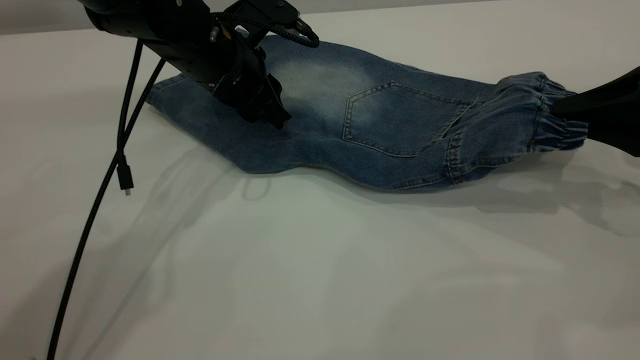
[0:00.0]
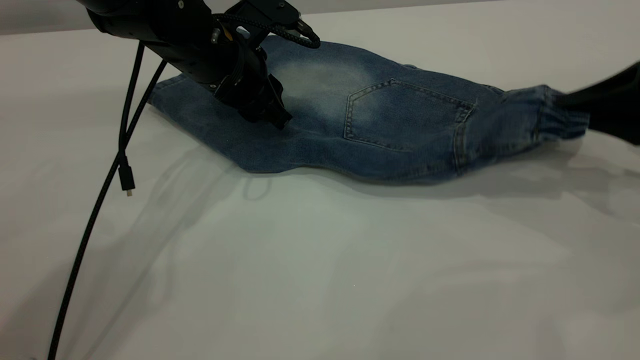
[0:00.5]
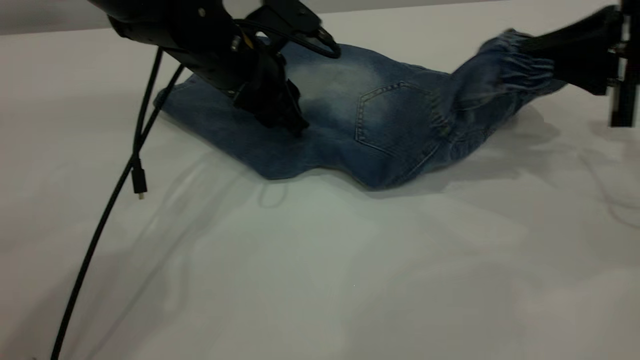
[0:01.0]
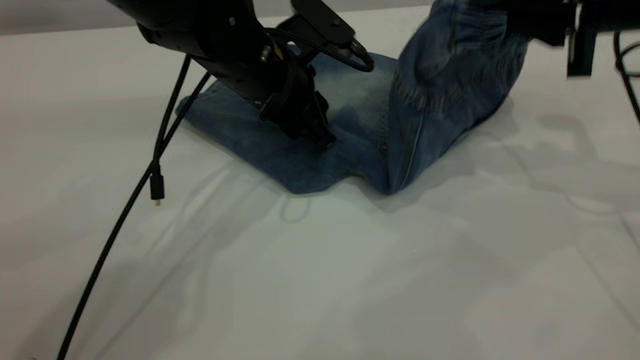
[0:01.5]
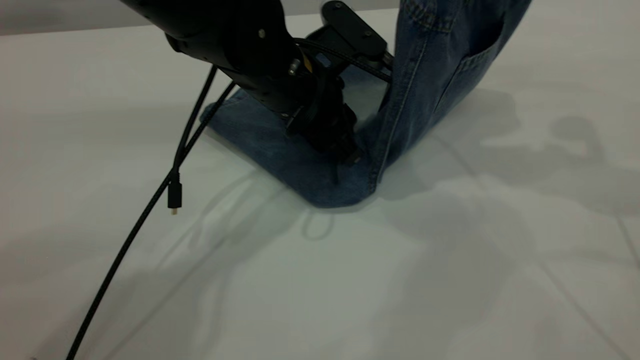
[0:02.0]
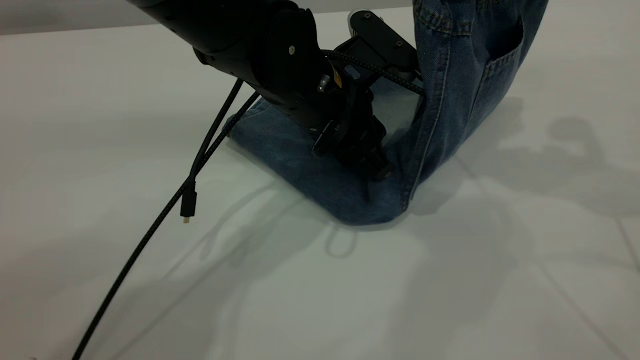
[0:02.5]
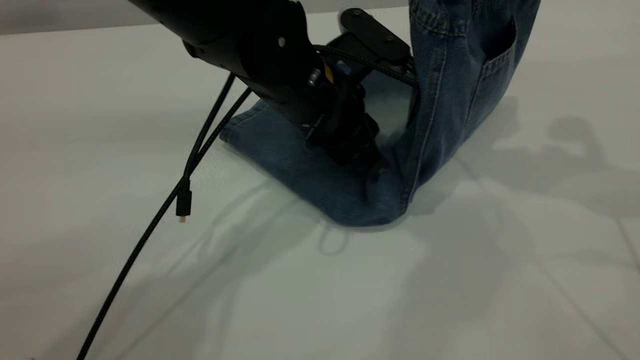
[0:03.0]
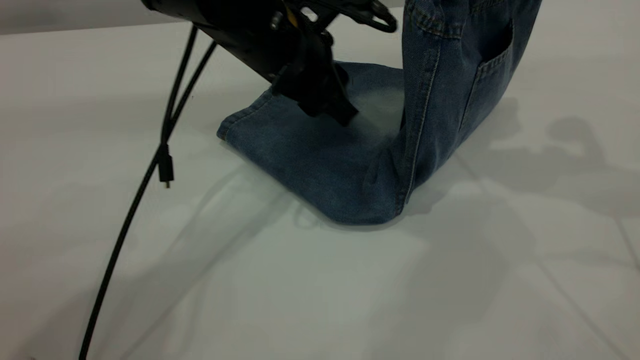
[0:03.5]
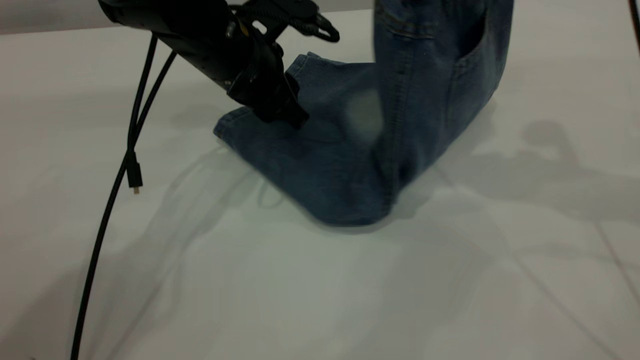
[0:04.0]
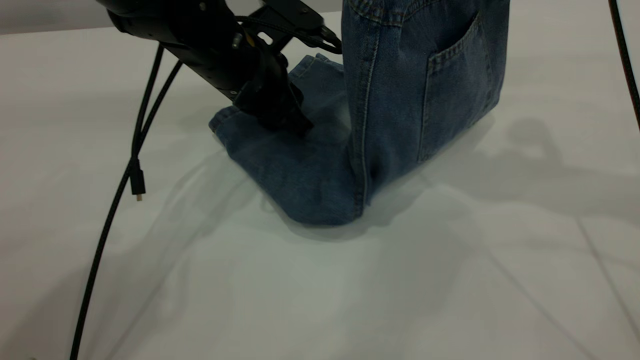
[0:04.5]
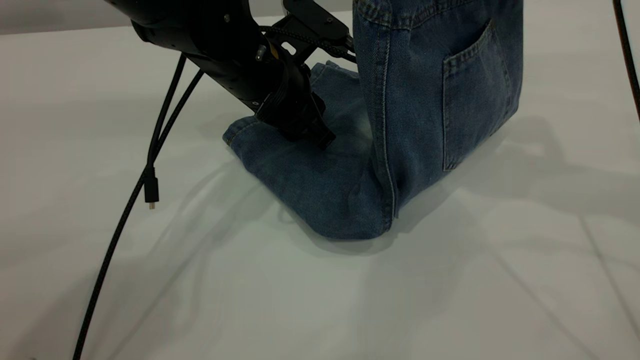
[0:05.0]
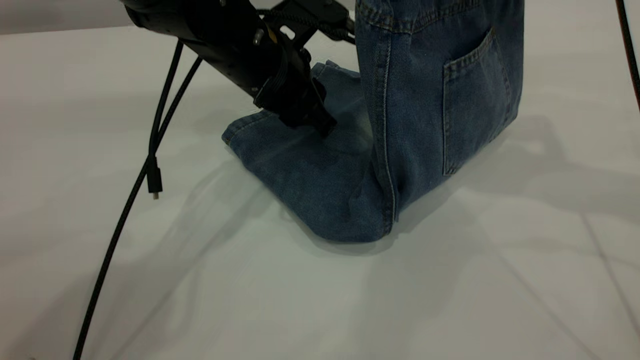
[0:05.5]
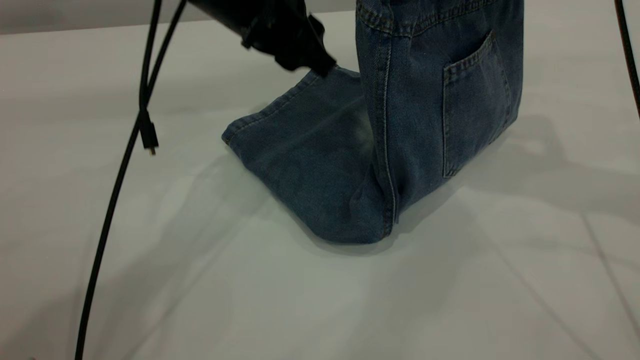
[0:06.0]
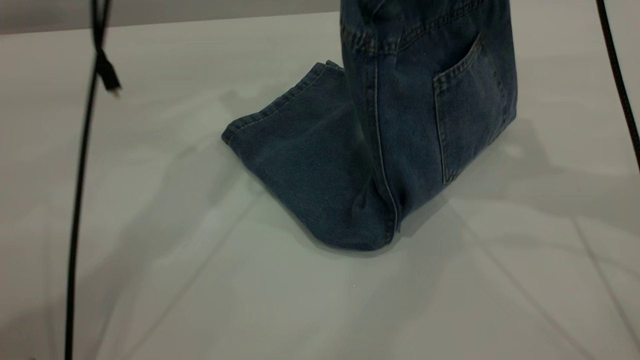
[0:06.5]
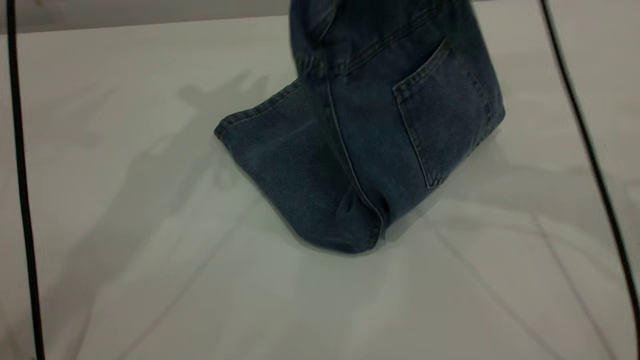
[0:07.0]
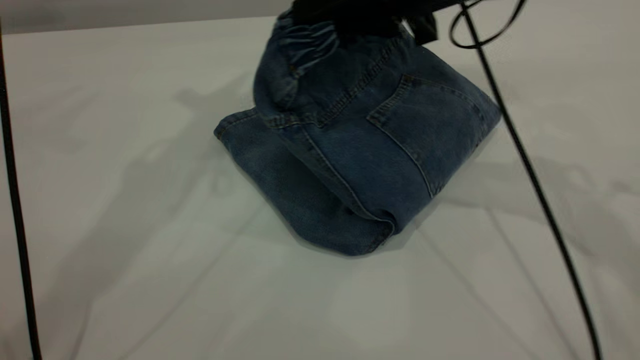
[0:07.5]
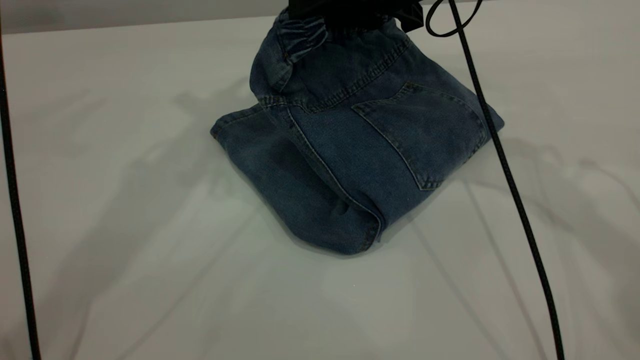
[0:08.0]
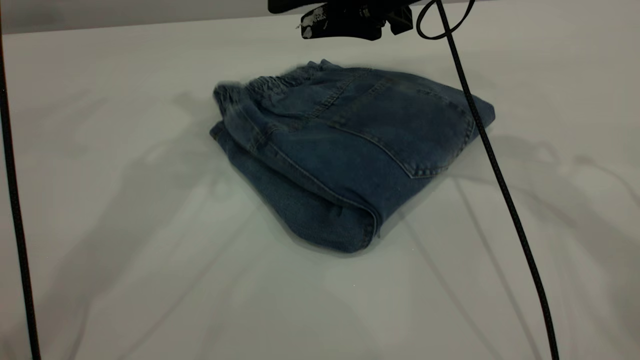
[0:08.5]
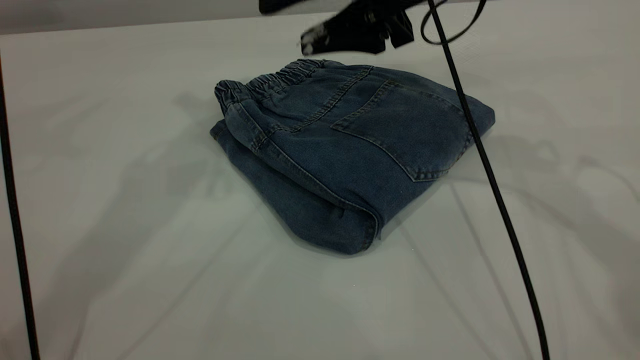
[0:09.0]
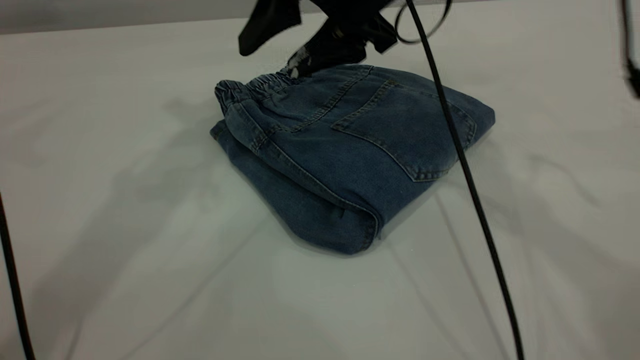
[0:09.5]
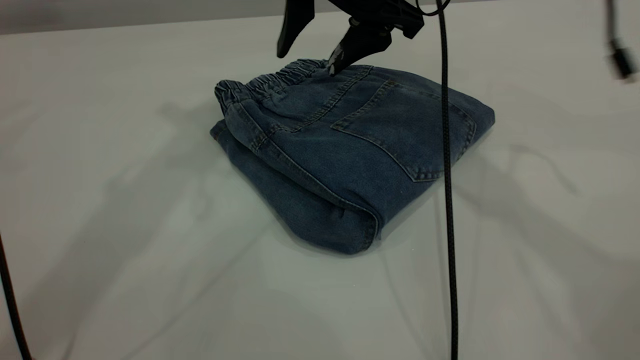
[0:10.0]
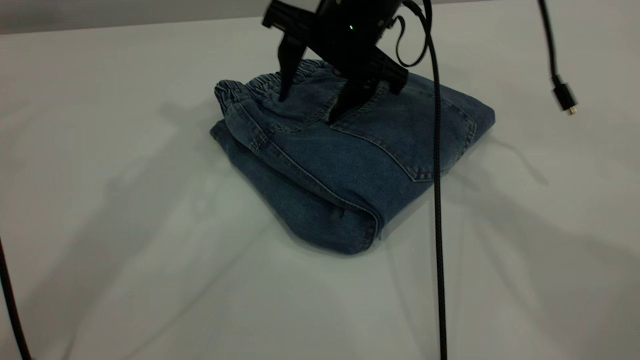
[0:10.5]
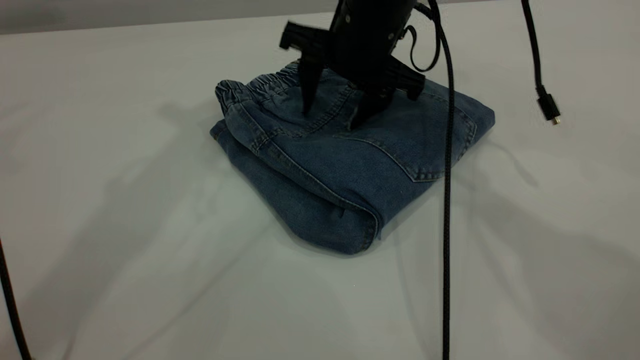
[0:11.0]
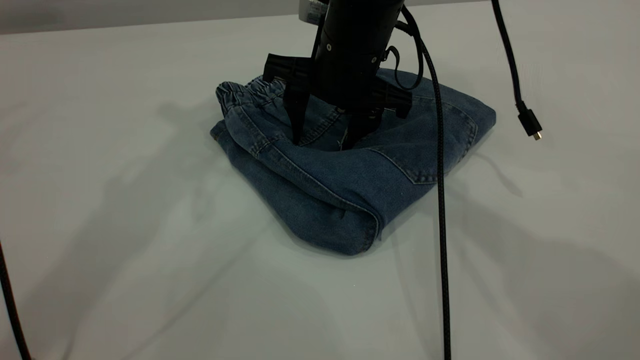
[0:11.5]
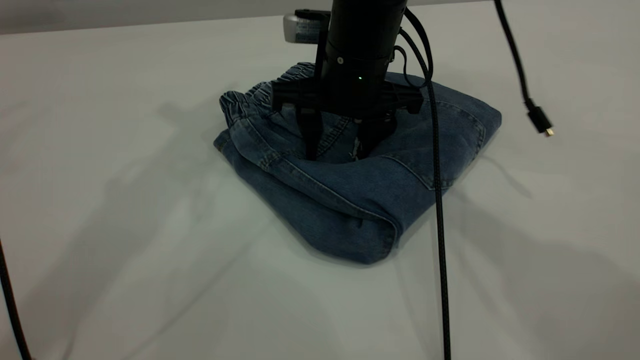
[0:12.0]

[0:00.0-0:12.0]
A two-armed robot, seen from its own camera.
Step, 0:00.0 to 0:08.5: Fold your pants from right to left.
0:00.0 to 0:02.0: The right gripper travels upward by approximately 15 cm, while the left gripper goes some 10 cm to the right and backward.
0:02.0 to 0:04.0: The left gripper is displaced to the left by about 5 cm.
0:04.0 to 0:06.0: The left gripper shifts roughly 5 cm upward.
0:06.0 to 0:08.0: The left gripper moves upward and to the left, about 20 cm. Meanwhile the right gripper travels to the left, downward and forward by approximately 15 cm.
0:08.0 to 0:10.0: The left gripper travels upward by some 5 cm. Meanwhile the right gripper opens up.
0:10.0 to 0:12.0: The right gripper goes some 10 cm downward.

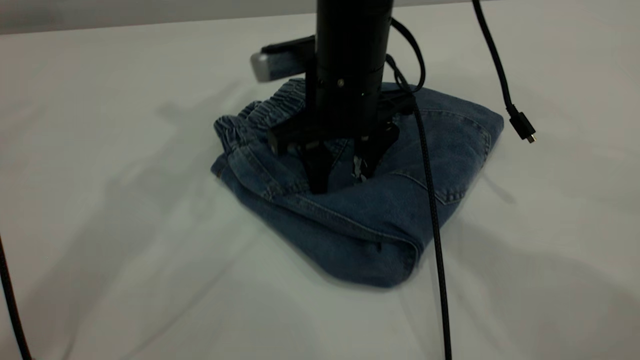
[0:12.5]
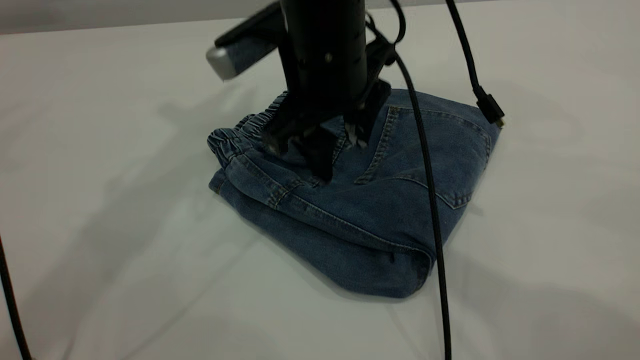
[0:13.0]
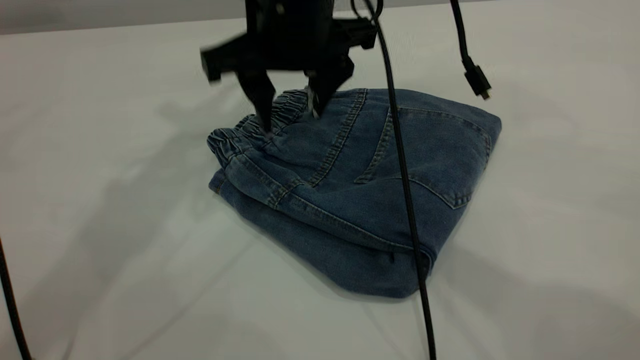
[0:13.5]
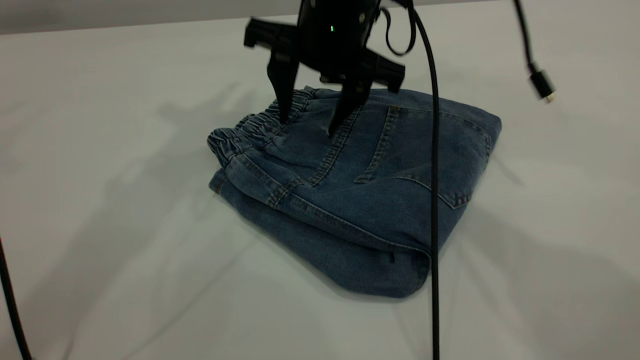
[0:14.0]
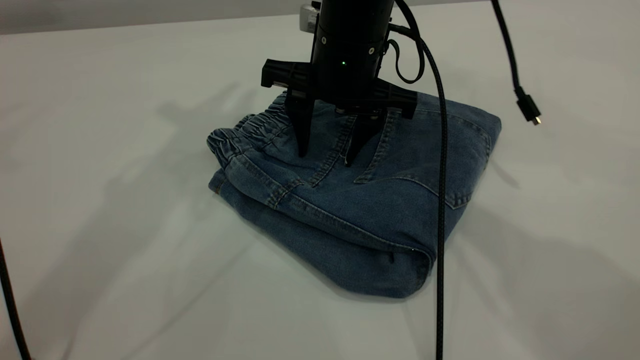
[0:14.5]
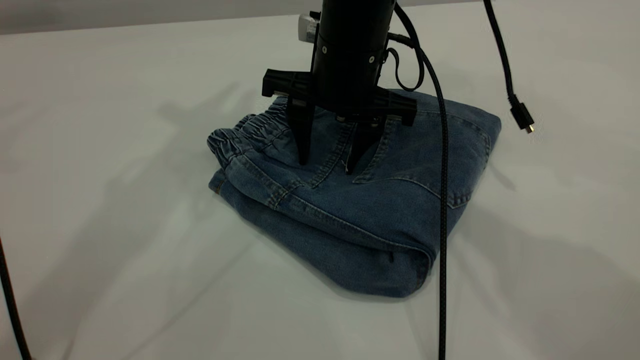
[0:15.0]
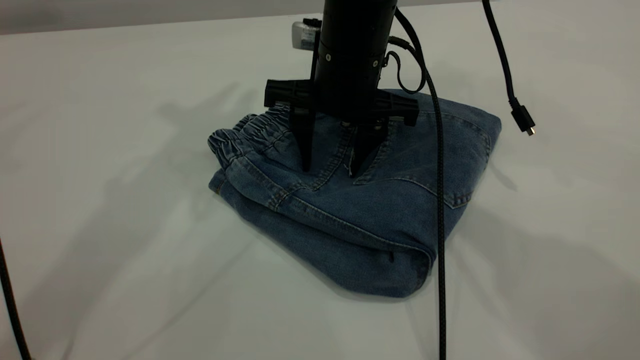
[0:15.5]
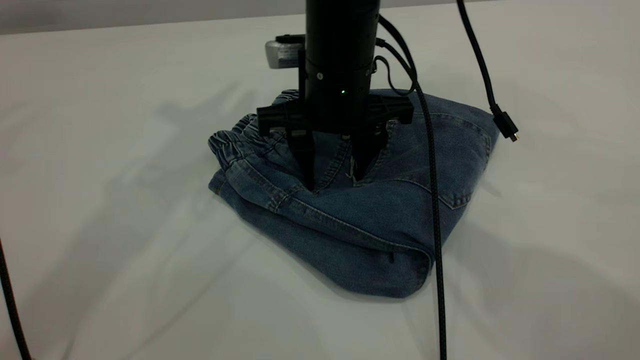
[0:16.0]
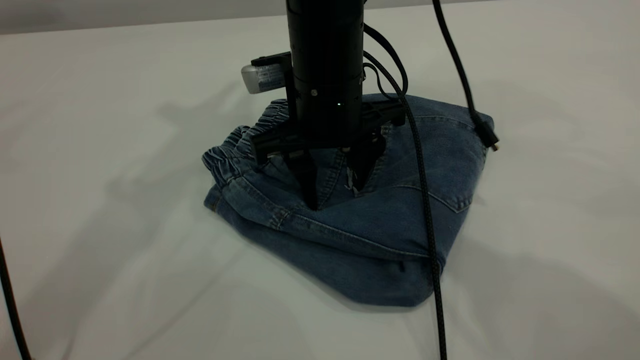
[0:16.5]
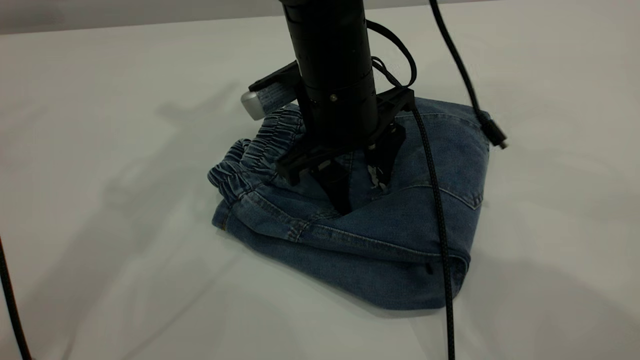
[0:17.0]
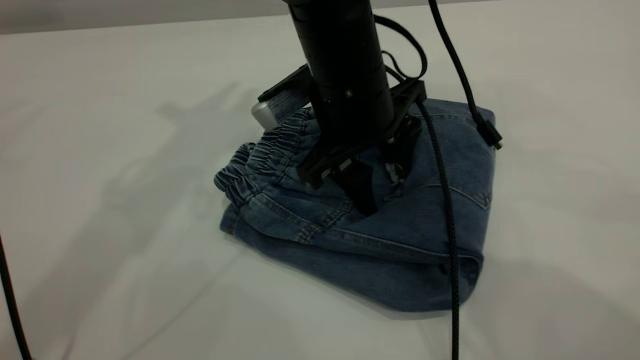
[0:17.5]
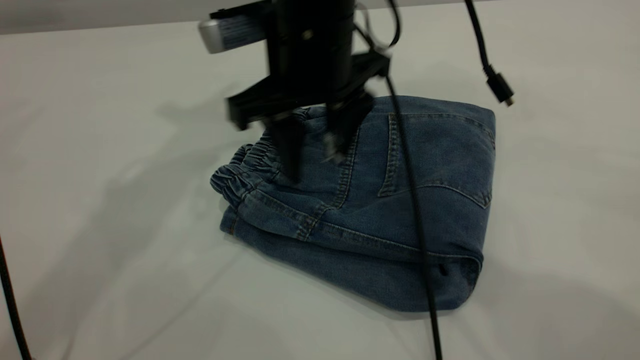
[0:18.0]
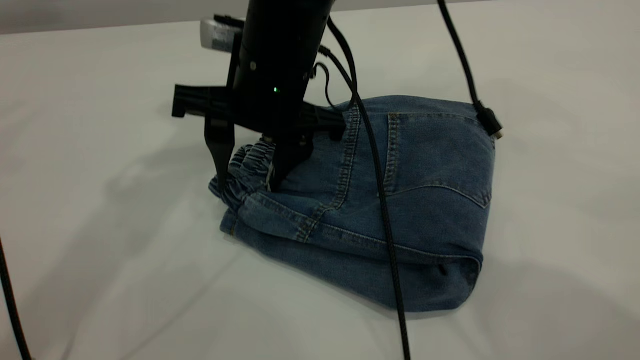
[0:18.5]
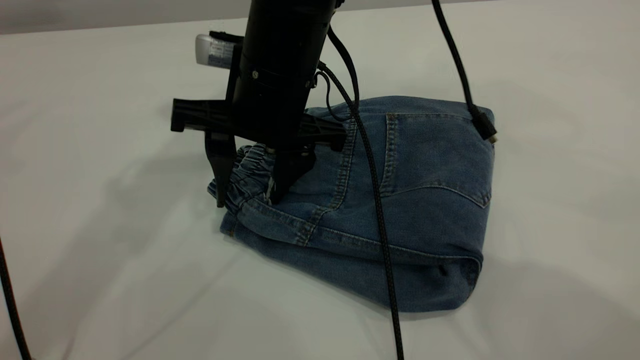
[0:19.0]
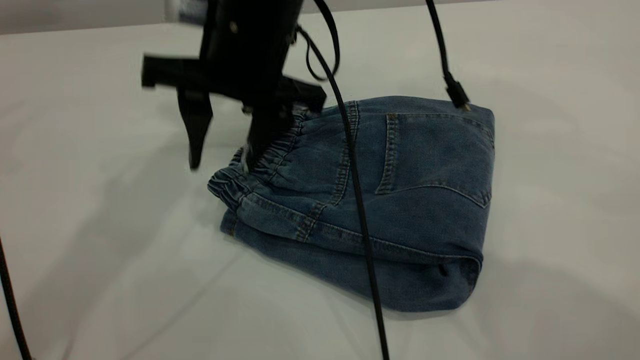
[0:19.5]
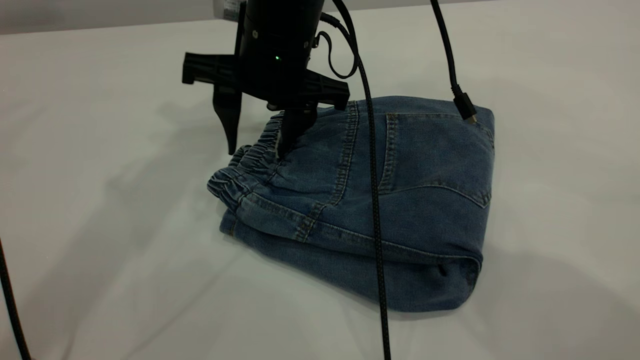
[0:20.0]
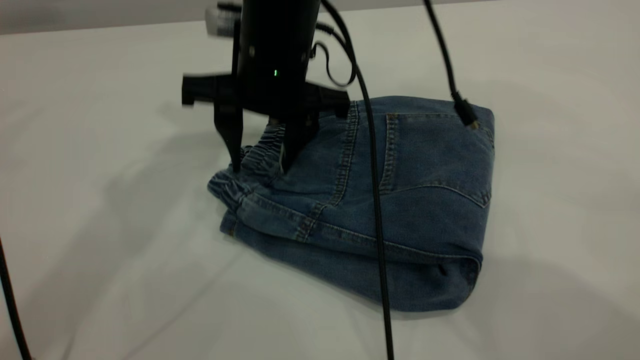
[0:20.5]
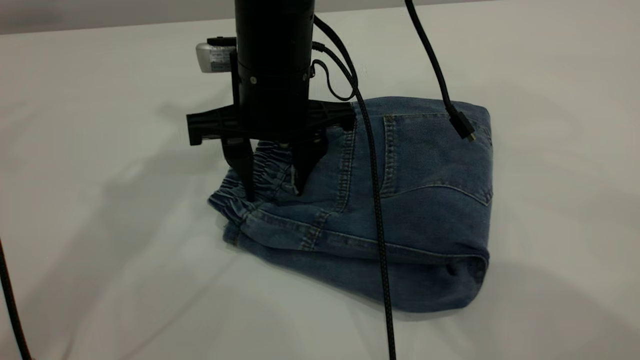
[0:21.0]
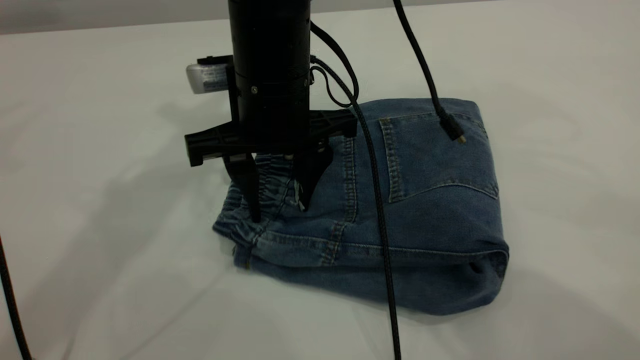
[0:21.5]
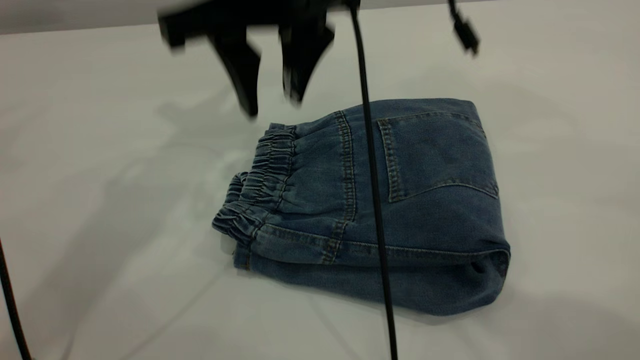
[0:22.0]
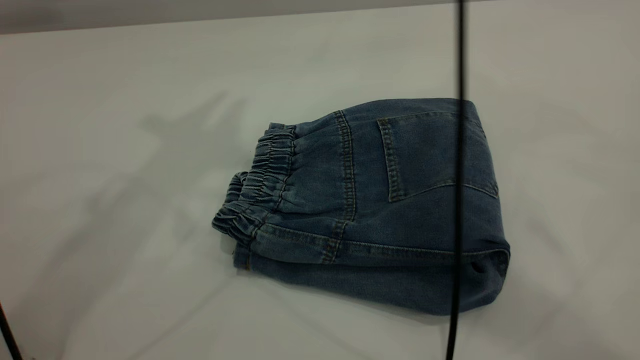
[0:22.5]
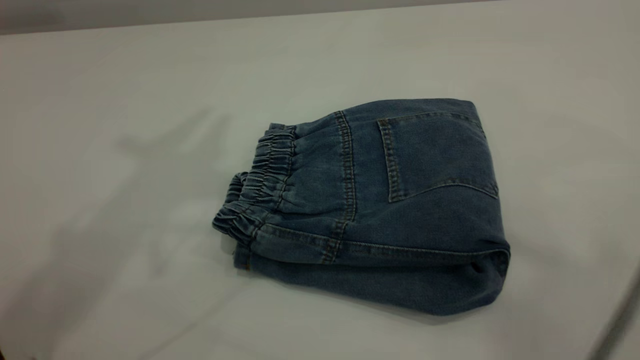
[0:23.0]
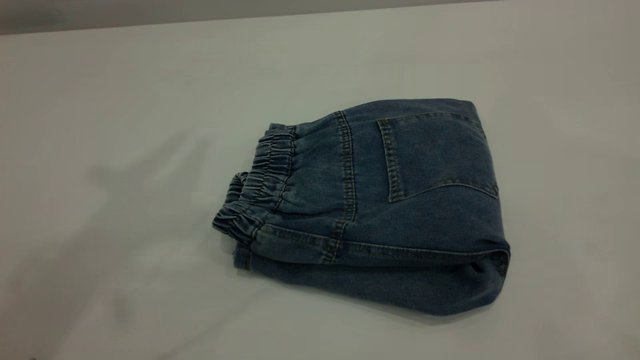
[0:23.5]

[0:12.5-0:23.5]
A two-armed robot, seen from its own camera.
0:16.0 to 0:18.0: The right gripper shifts about 5 cm upward.
0:21.5 to 0:23.5: The right gripper shifts about 60 cm upward, to the right and backward; the left gripper travels upward and backward by some 15 cm.
